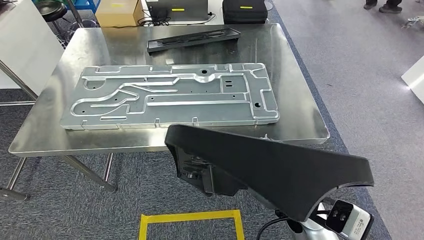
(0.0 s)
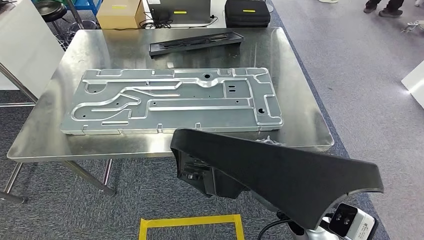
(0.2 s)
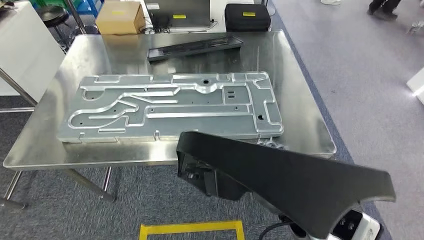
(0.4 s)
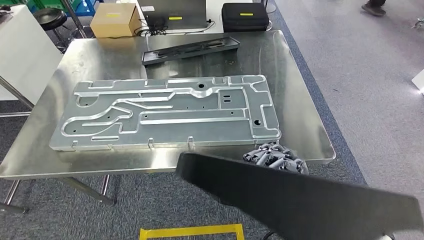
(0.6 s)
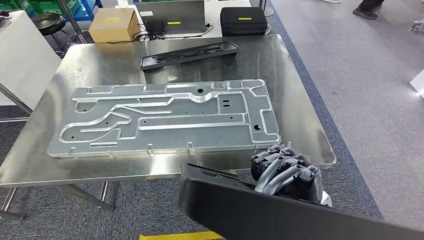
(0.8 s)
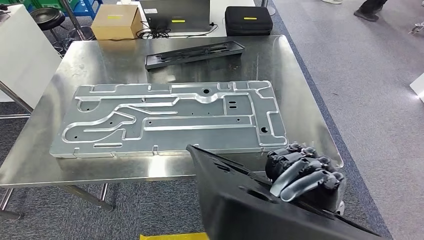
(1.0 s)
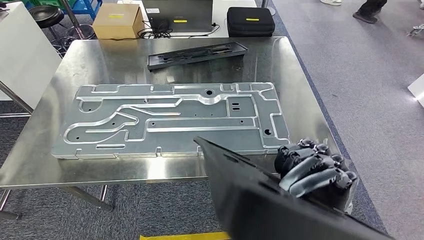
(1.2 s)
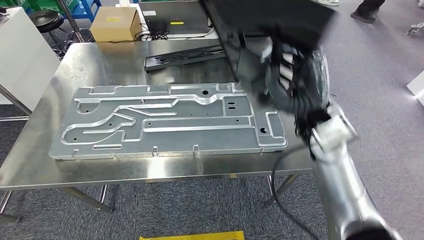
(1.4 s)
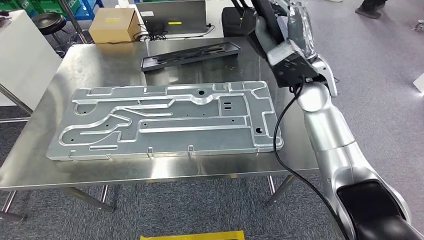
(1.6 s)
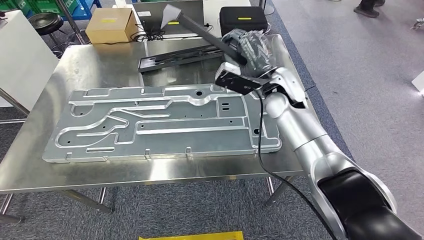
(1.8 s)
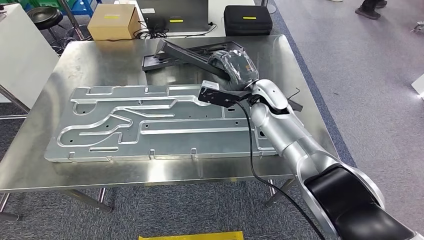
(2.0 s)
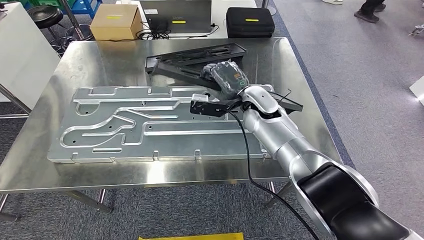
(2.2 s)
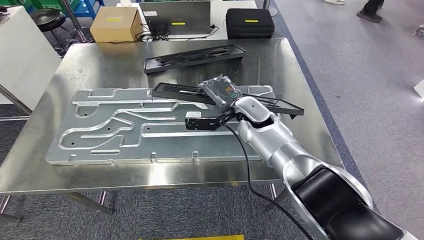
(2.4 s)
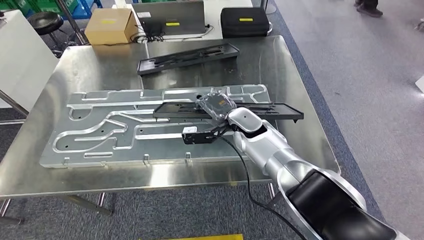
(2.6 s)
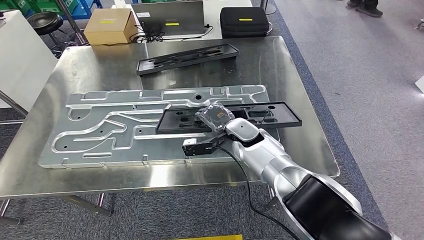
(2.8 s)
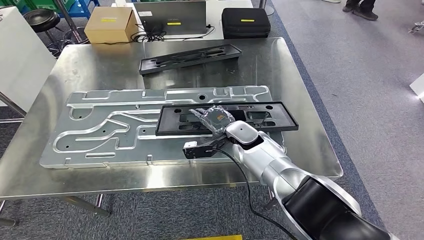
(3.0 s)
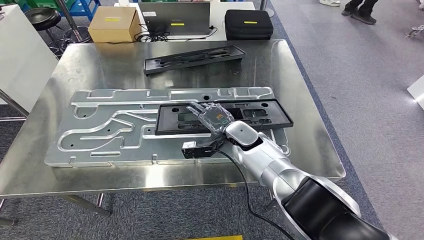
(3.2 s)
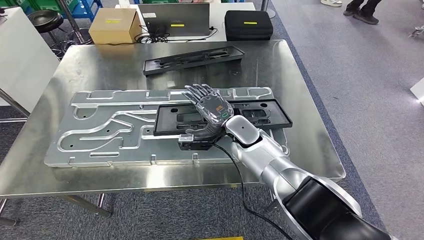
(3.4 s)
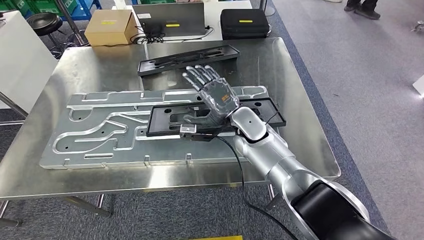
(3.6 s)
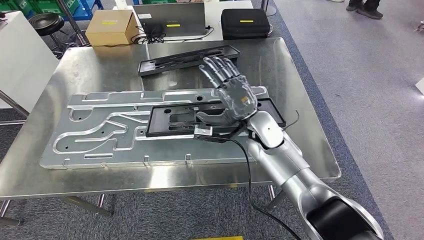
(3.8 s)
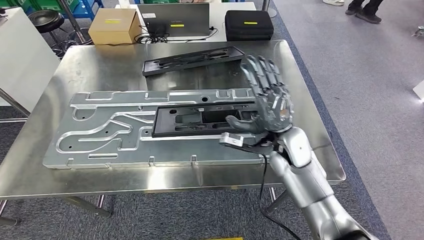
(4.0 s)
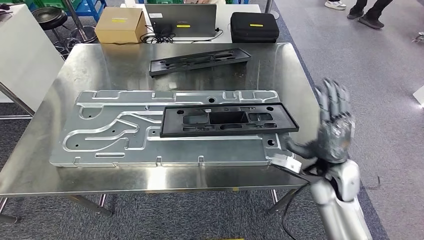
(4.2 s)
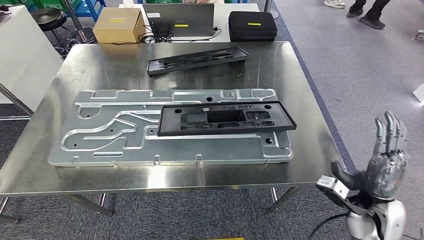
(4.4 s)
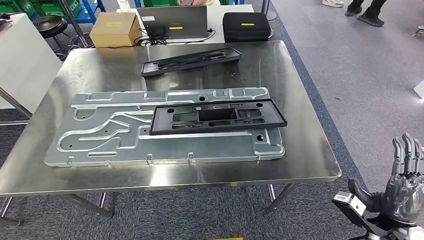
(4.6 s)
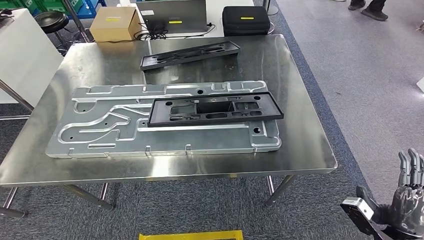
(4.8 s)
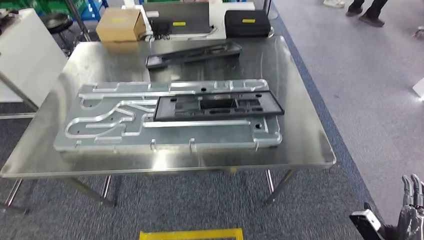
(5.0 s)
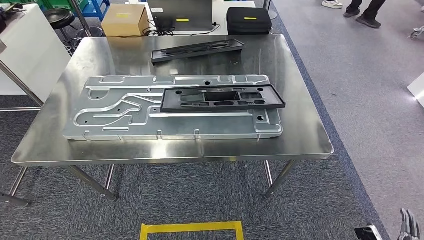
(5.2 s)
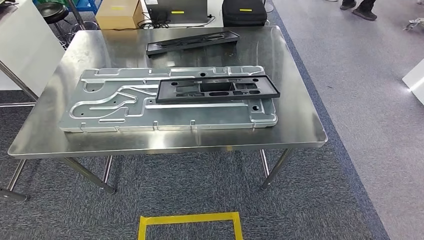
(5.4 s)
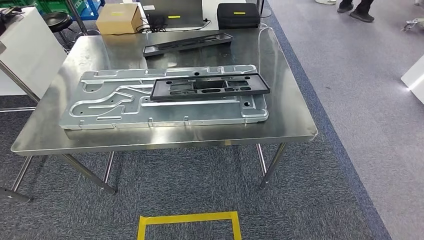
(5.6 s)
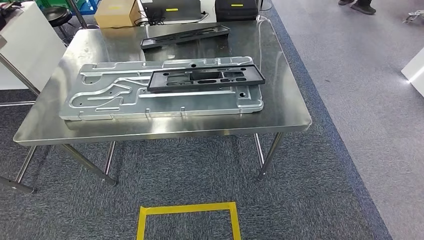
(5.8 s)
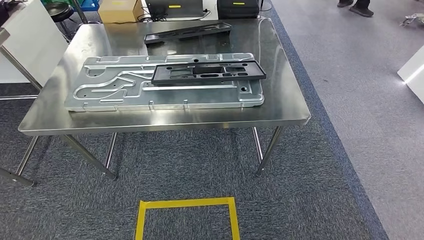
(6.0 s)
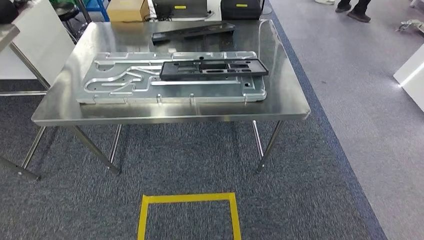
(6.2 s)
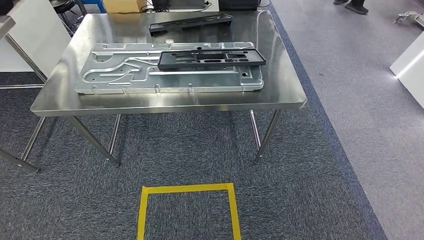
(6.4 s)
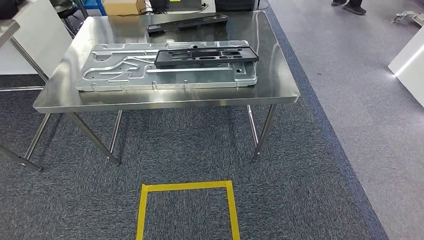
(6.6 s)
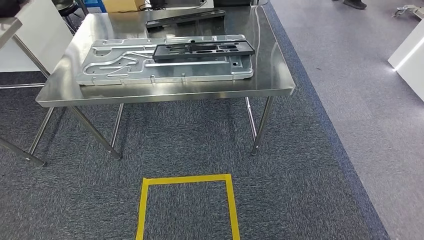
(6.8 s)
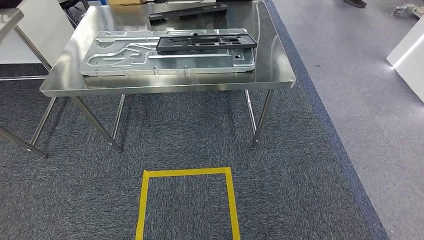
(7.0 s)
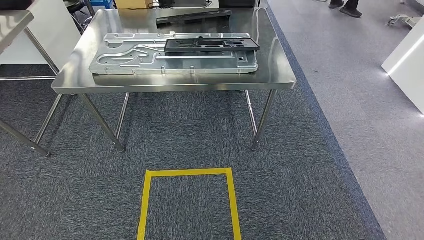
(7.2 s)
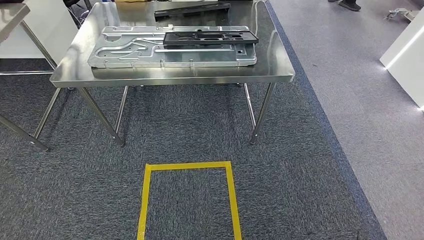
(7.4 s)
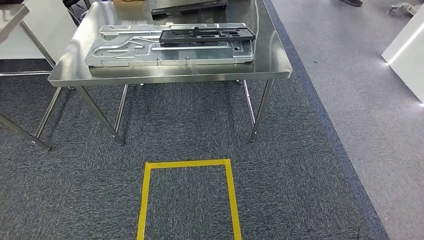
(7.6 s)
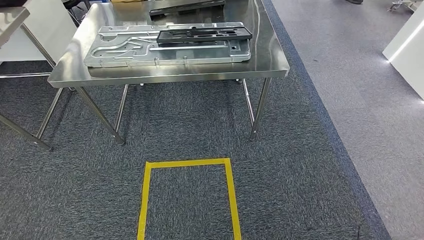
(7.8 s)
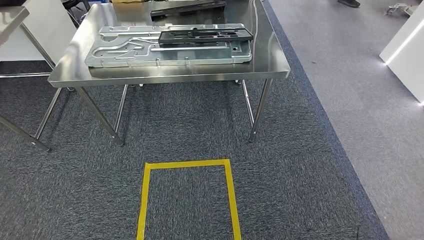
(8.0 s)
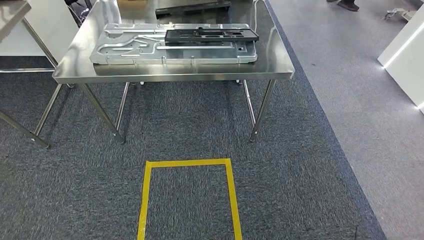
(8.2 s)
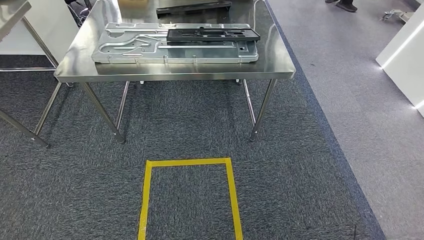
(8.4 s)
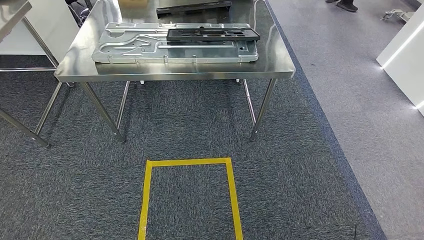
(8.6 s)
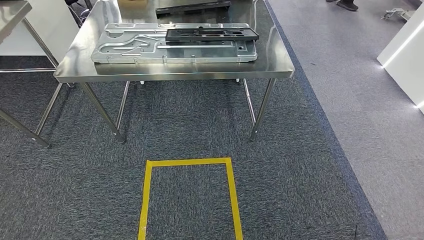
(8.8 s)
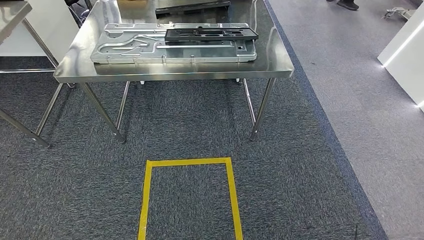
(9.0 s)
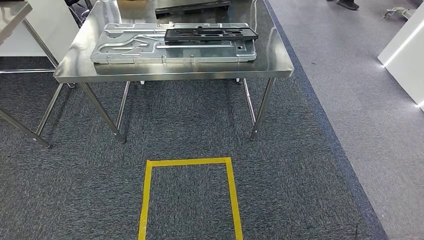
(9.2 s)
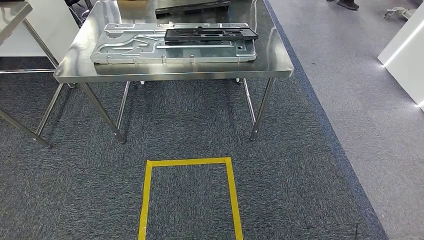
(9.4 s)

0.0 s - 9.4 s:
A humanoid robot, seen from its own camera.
Step, 0.0 s - 5.0 s: Insert the large material into the corresponding slot on the workbench.
Step, 5.2 s - 9.4 s: Return to the initial position at the shelf.
7.8 s - 9.4 s: The hands stay close to where they were, moving slightly.
